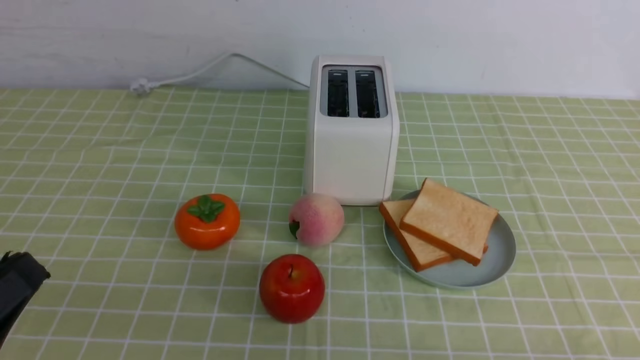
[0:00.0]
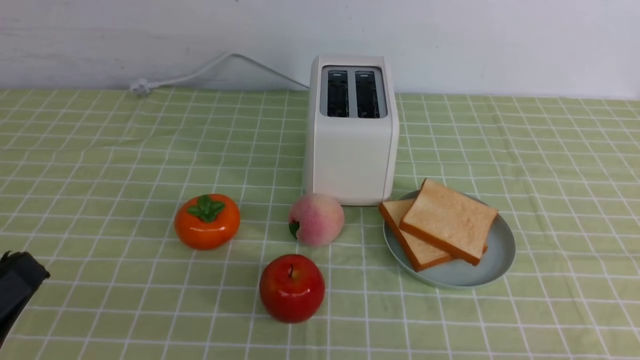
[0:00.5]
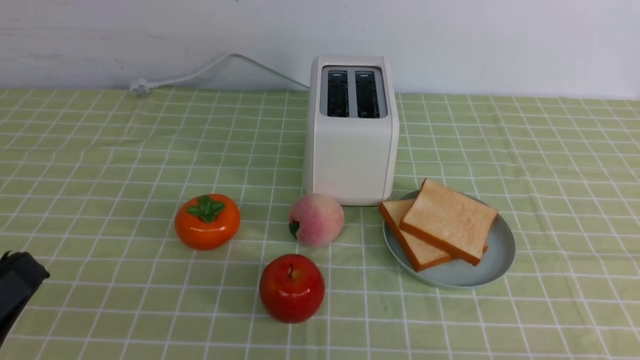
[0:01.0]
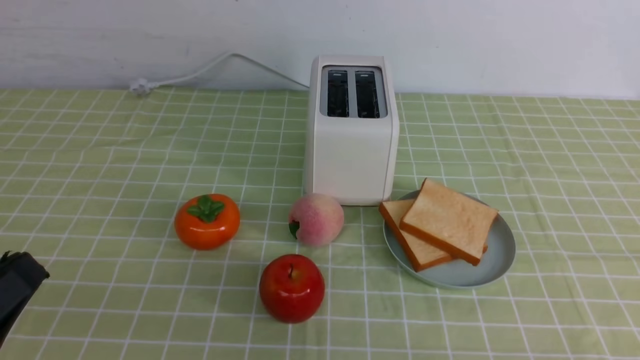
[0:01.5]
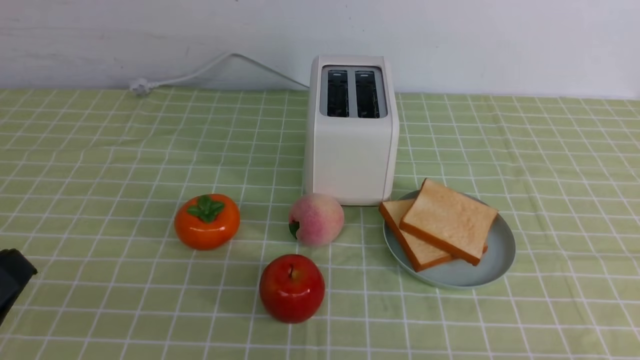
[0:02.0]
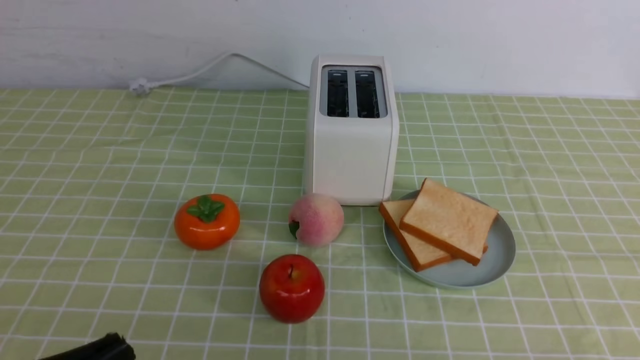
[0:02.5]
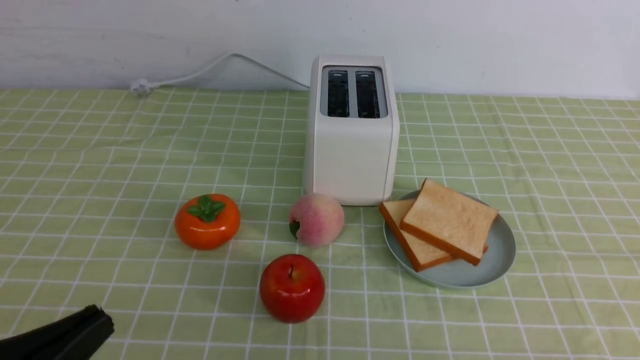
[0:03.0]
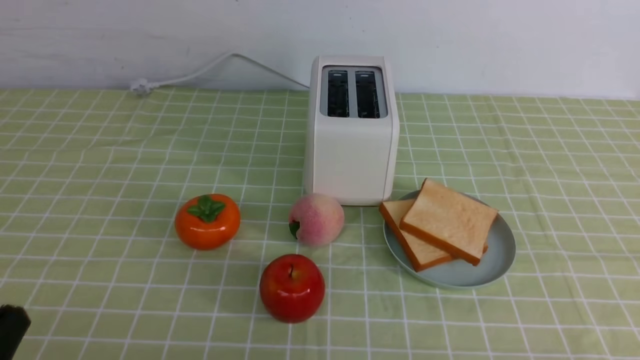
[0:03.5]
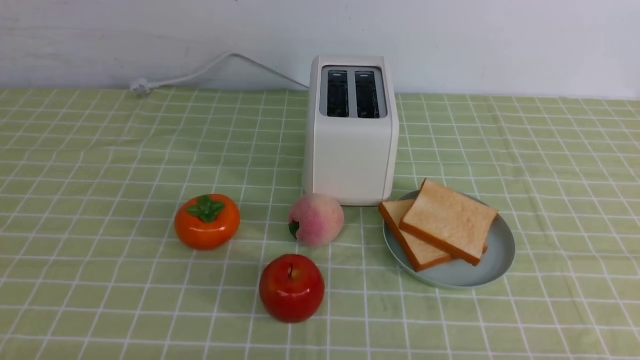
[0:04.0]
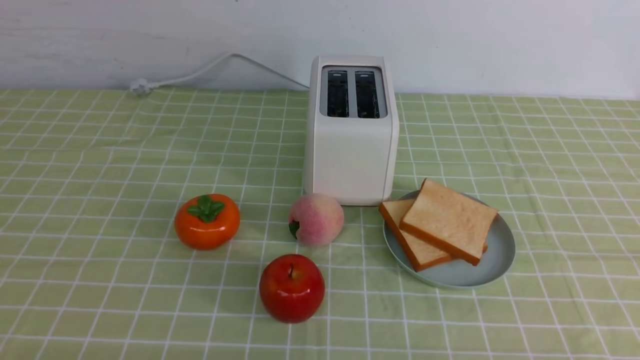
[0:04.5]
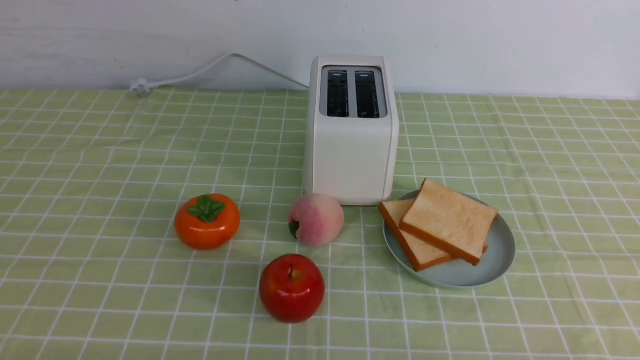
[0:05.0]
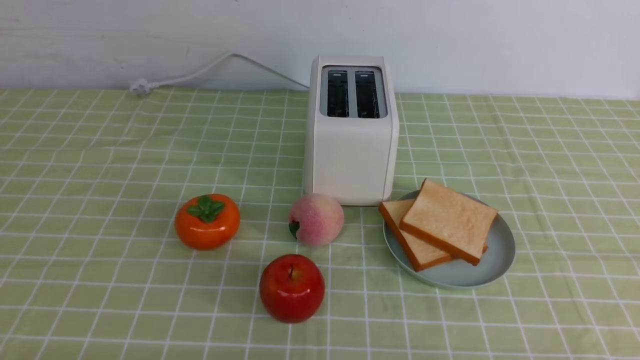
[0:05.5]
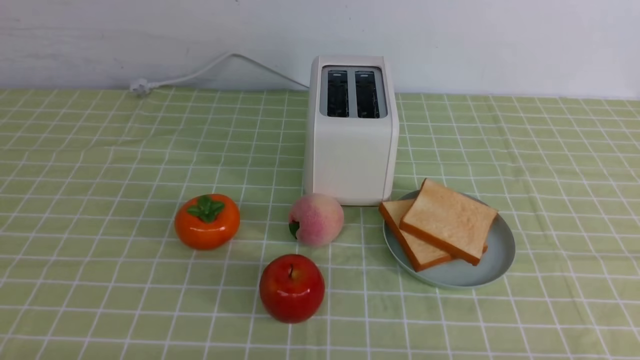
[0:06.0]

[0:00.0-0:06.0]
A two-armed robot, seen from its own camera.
Task of the whole recording: take toasted bread from bread machine on green coffee tablecloth place on plate.
0:02.0 to 0:04.0: The left gripper shifts about 10 cm downward.
0:04.0 to 0:06.0: Neither gripper changes place.

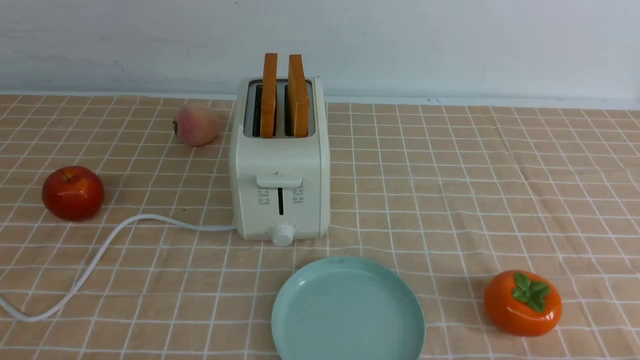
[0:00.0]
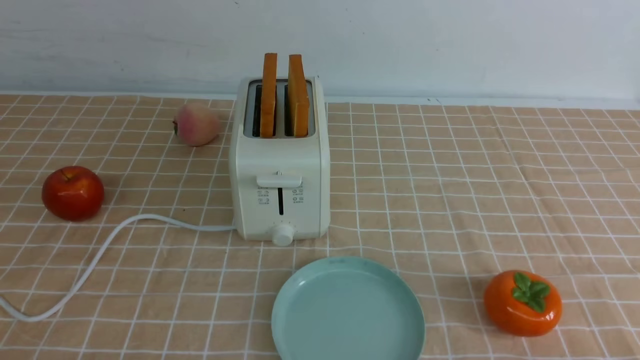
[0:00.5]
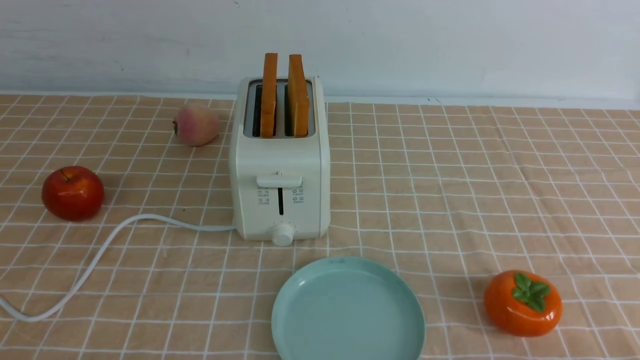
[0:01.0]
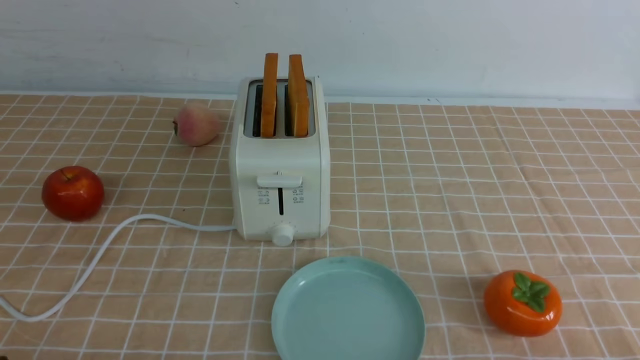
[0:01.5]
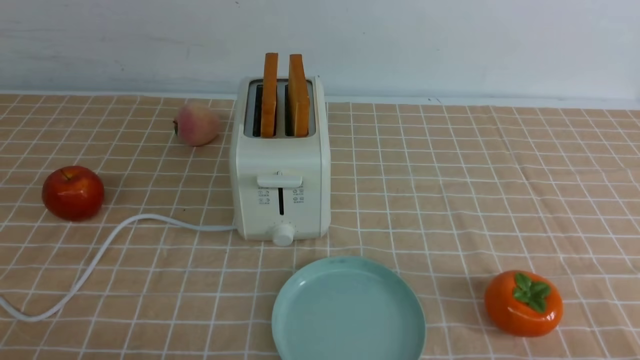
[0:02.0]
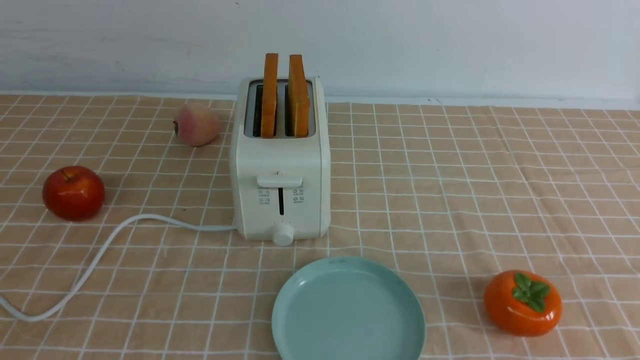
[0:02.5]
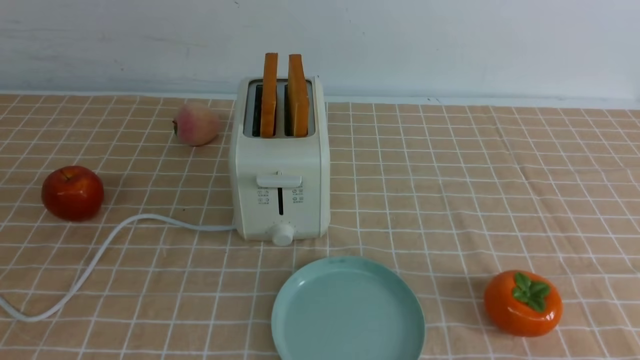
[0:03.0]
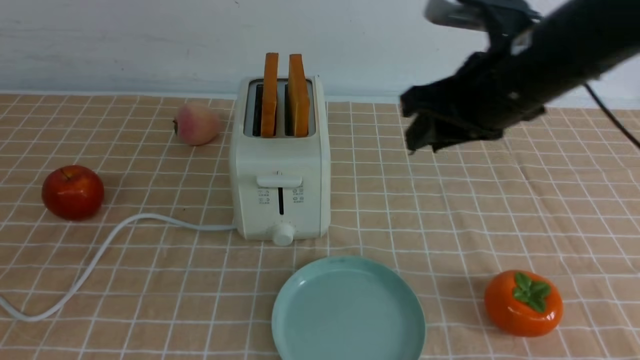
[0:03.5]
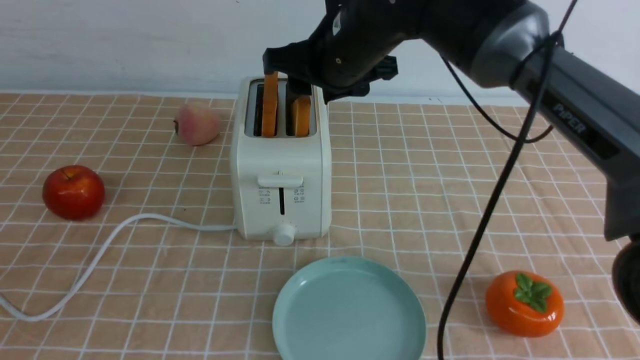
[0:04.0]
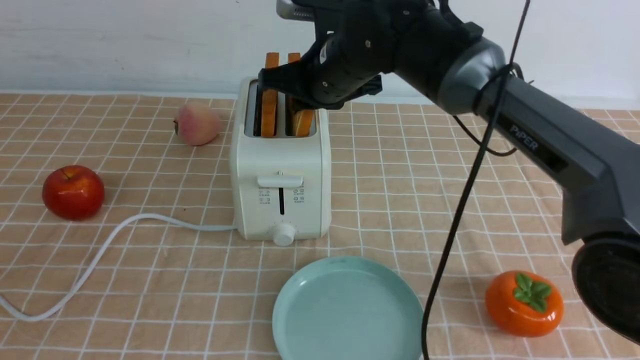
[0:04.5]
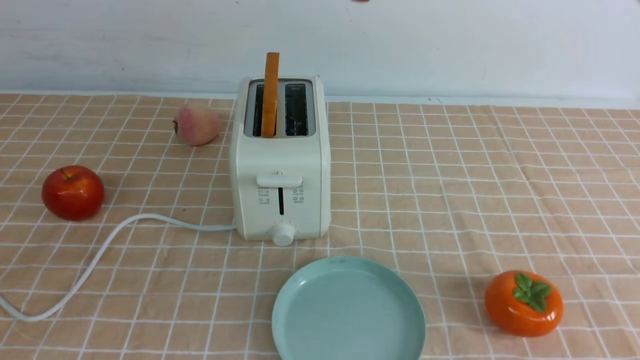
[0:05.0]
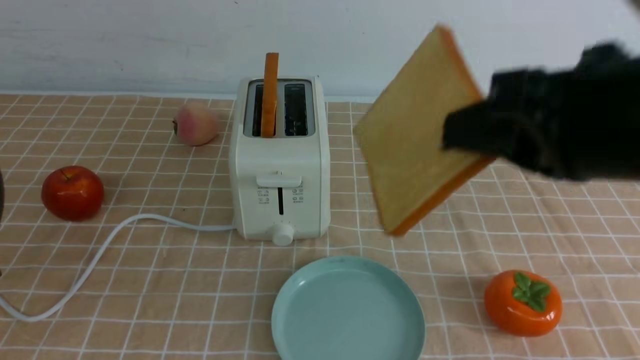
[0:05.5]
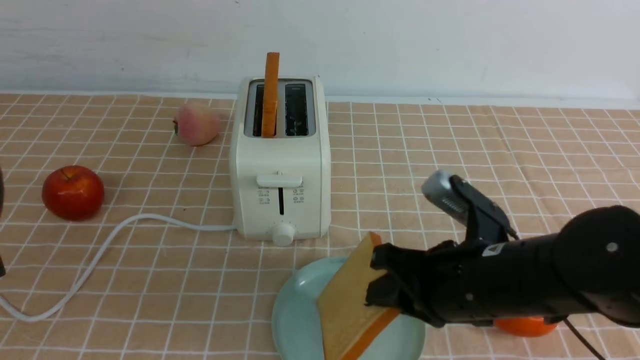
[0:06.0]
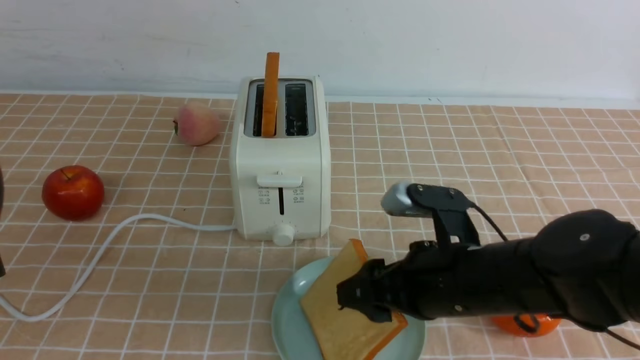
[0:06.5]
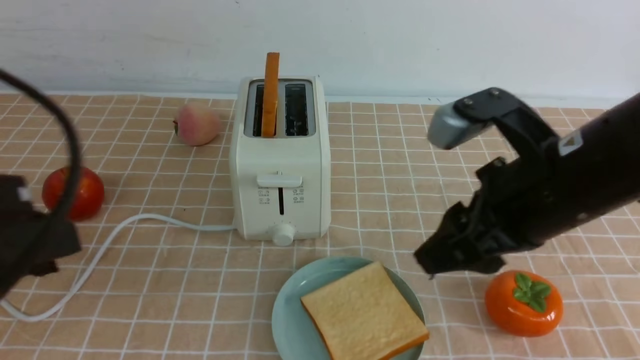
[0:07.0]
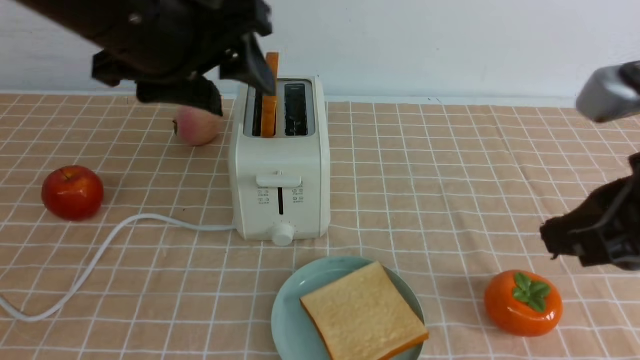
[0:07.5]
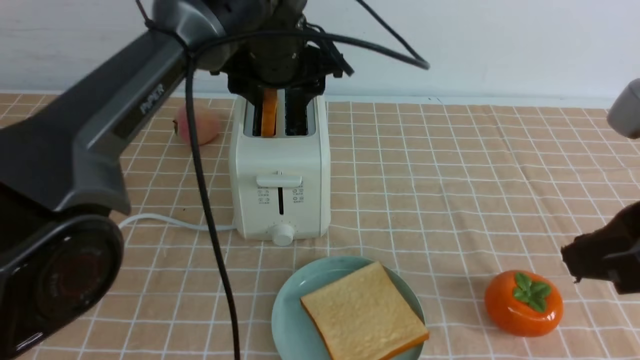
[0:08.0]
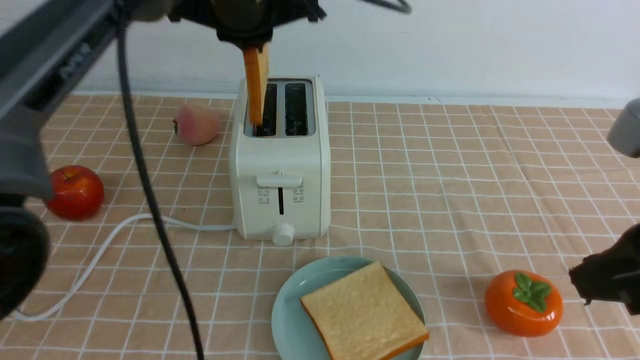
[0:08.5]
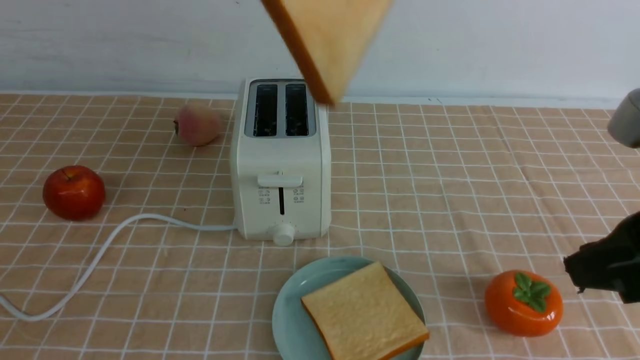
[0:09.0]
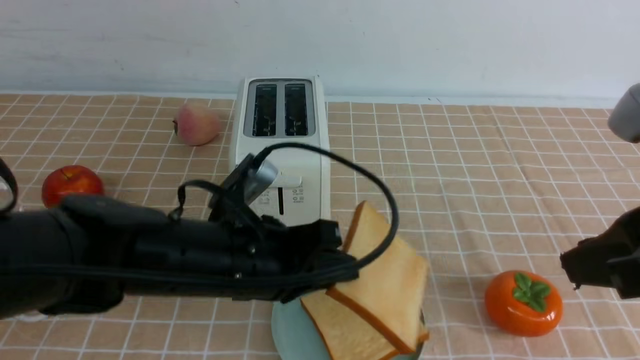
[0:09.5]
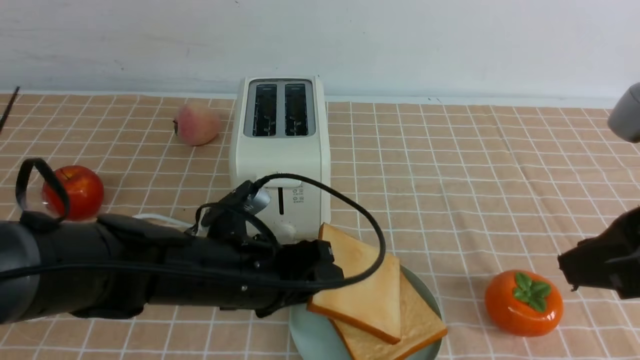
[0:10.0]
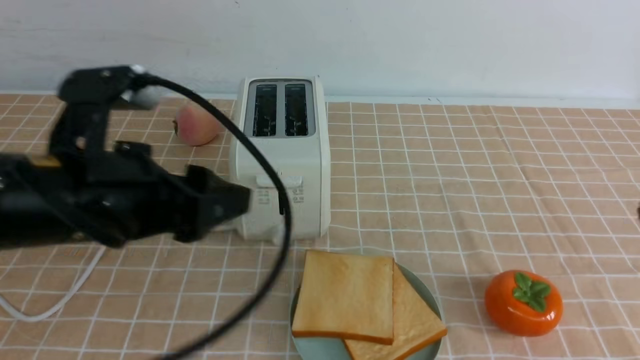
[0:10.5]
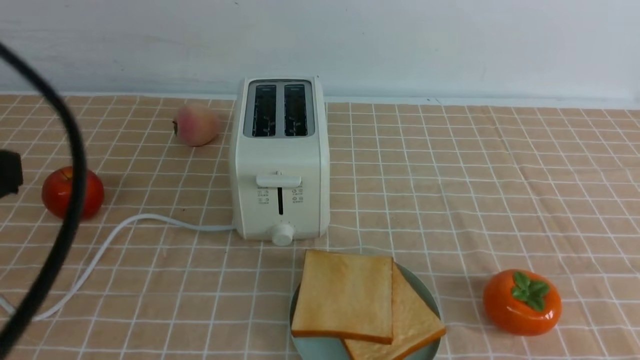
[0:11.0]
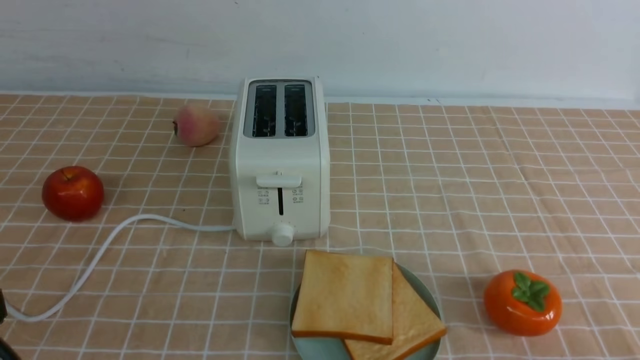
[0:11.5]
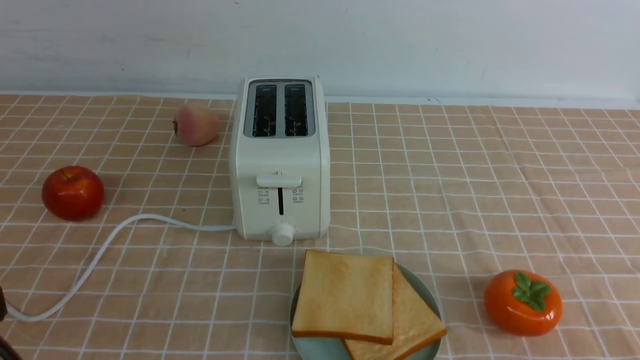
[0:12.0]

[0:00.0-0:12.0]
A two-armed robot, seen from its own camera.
Task of the whole recording: take toasted bread from bread machine on light coffee tablecloth place on plate.
Step, 0:00.0 to 0:04.5: use the right arm to take out a slice of bread.
Step, 0:05.0 to 0:06.5: use the right arm to put a slice of bread into the plate.
Step, 0:07.0 to 0:08.5: use the left arm to take out a slice of bread.
Step, 0:09.0 to 0:10.0: use the left arm to put a slice of bread into the empty plate.
0:02.0 to 0:04.0: The left gripper travels upward by about 15 cm; the right gripper heads forward and to the left, covering some 40 cm.
0:04.0 to 0:06.0: The right gripper shifts approximately 25 cm backward, downward and to the right, and closes its fingers.
0:06.0 to 0:08.0: The right gripper travels upward, to the right and backward by about 15 cm, and opens, then closes once more. The left gripper is displaced forward and to the right by roughly 35 cm, and opens.
0:08.0 to 0:10.0: The left gripper travels downward and backward by approximately 25 cm, and closes up.
0:10.0 to 0:12.0: The right gripper shifts about 20 cm downward, backward and to the right, and closes up. The left gripper shifts approximately 25 cm backward, to the left and upward, and closes up.
